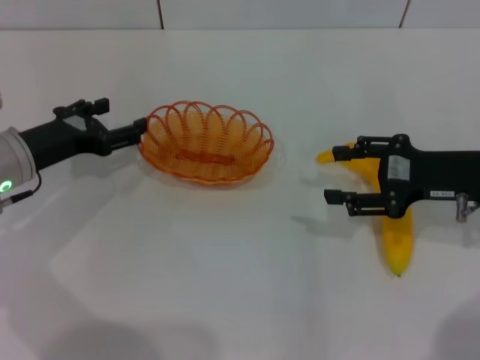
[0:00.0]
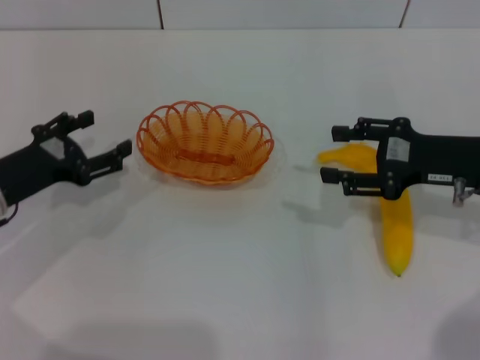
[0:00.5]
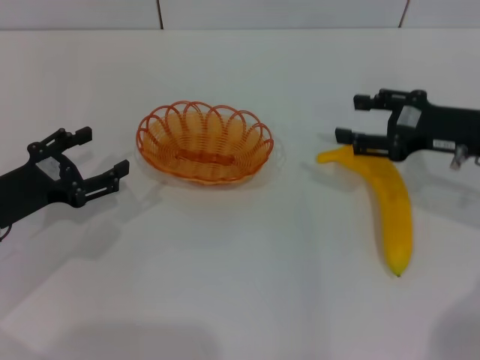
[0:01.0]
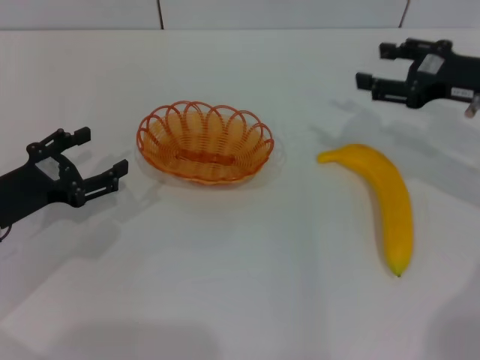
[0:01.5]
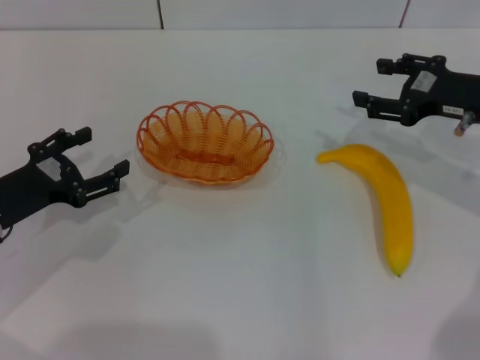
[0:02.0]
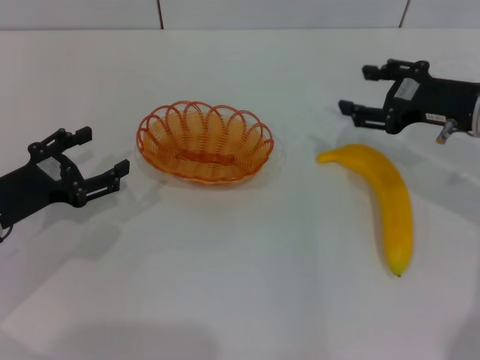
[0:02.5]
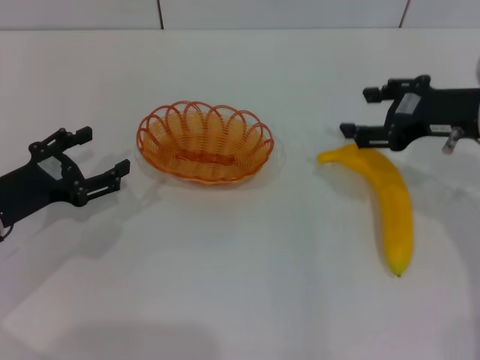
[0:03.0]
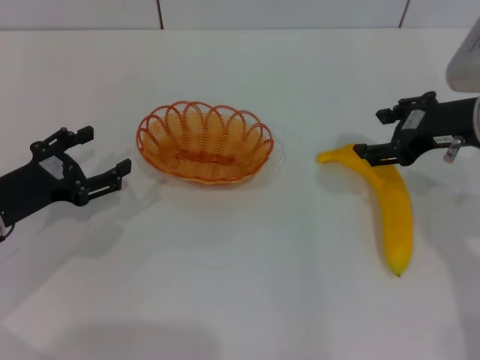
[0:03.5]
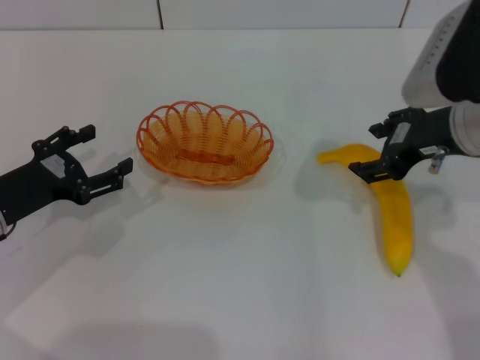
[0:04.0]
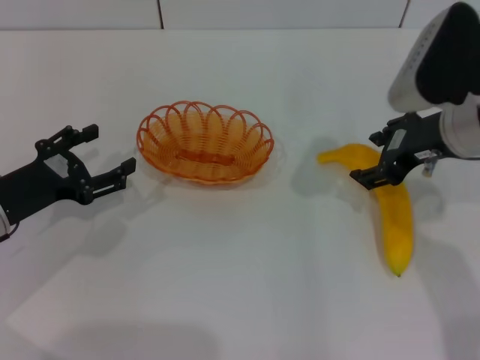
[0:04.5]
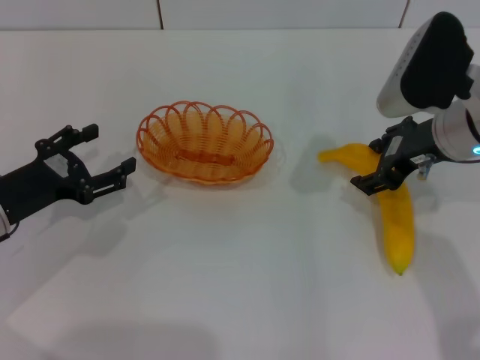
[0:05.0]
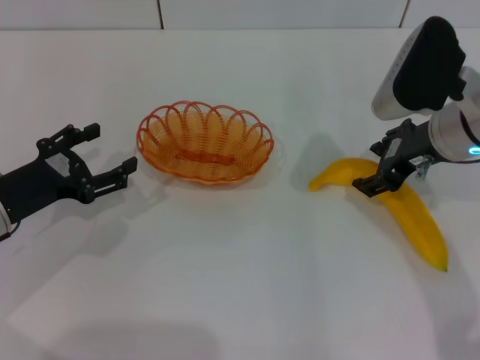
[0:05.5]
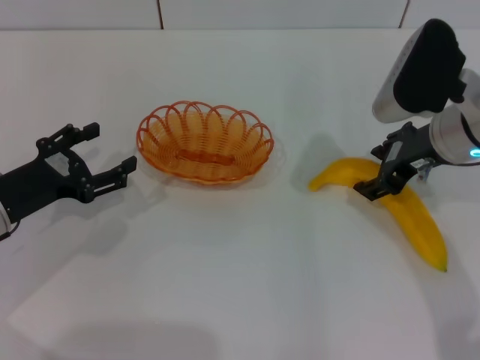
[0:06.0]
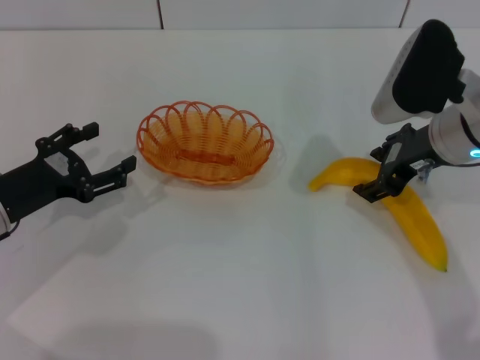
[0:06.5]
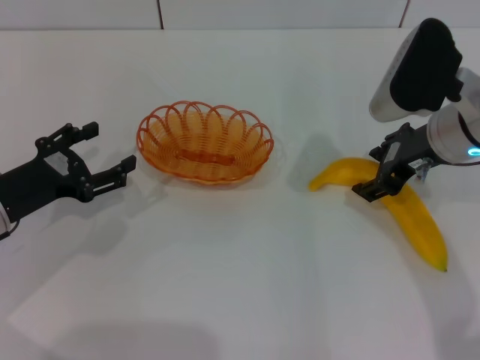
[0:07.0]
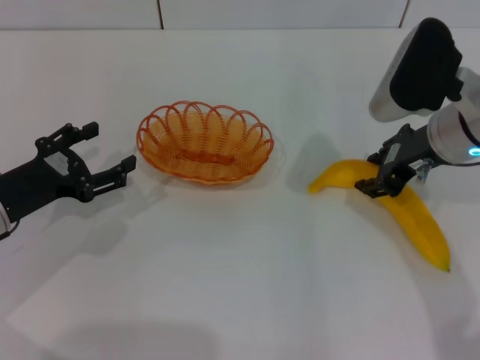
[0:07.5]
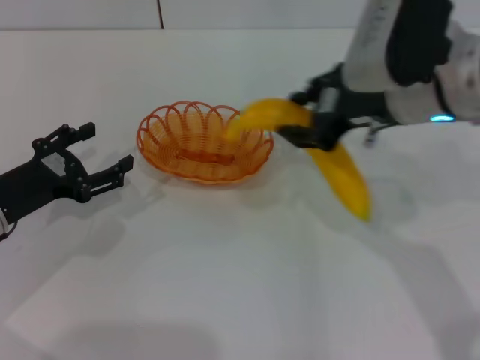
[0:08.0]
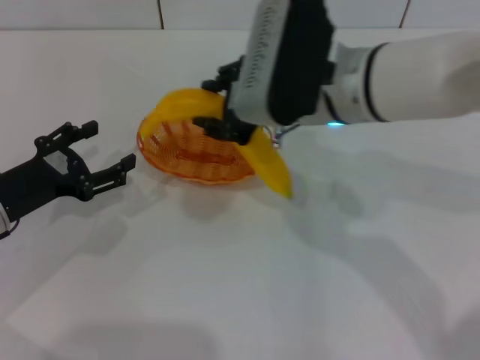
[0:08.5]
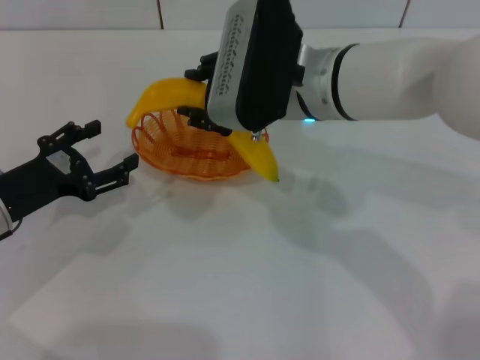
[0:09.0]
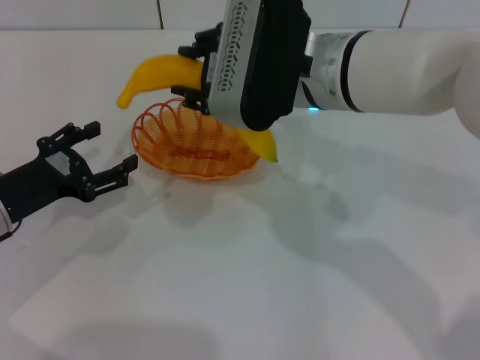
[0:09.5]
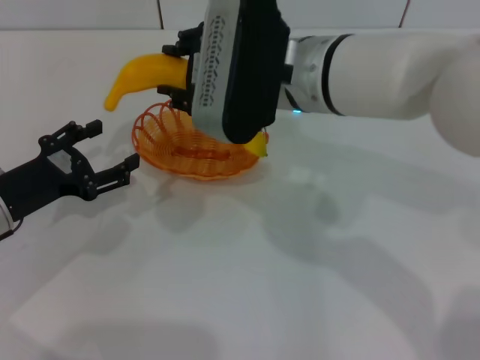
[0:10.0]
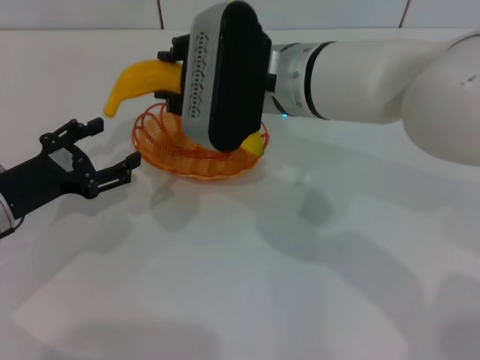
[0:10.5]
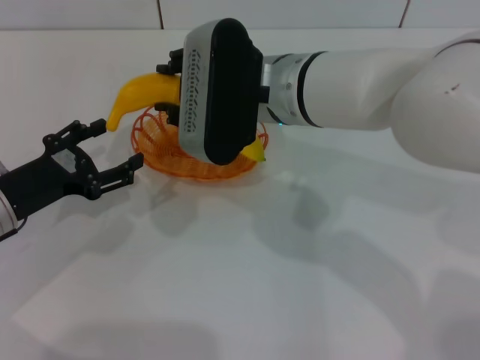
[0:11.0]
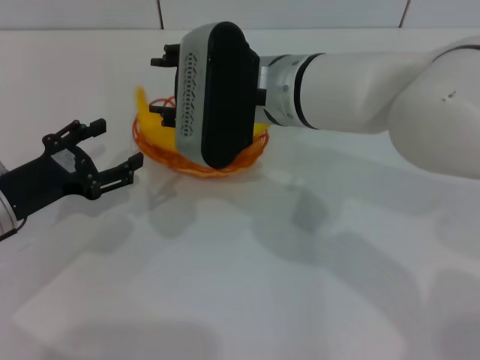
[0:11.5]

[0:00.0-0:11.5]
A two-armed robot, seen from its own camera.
Step, 0:00.0 to 0:02.0: Place the basket in the center of view with the left gripper.
Step, 0:02.5 to 0:08.0: Pick up the banana with the right gripper.
0:00.0 to 0:02.0: The right gripper goes about 5 cm forward. The left gripper travels backward by roughly 5 cm.
0:02.0 to 0:04.0: The right gripper heads to the left, covering roughly 5 cm.
0:04.0 to 0:06.0: There are only small adjustments of the grippers.
0:06.0 to 0:07.5: The right gripper closes up.
0:07.5 to 0:09.5: The right gripper is displaced to the left by approximately 15 cm.
0:09.5 to 0:11.5: The grippers move only a little.

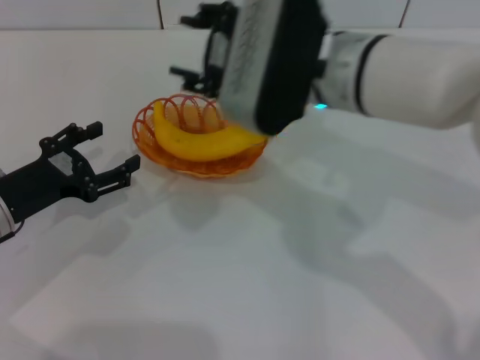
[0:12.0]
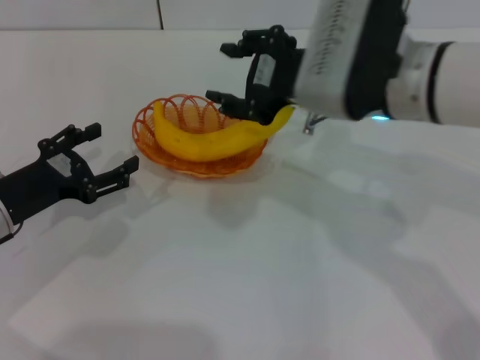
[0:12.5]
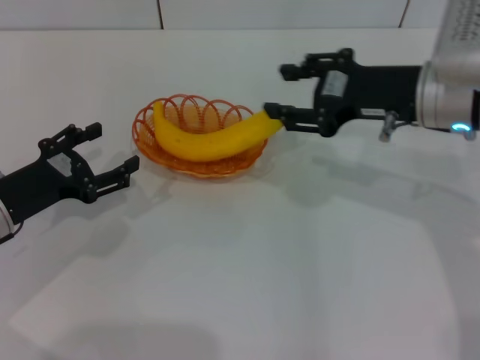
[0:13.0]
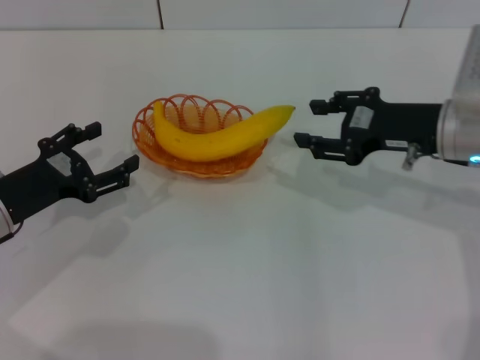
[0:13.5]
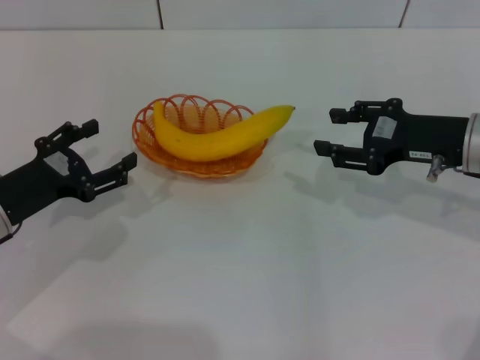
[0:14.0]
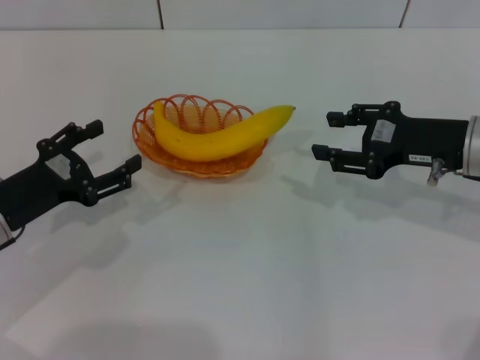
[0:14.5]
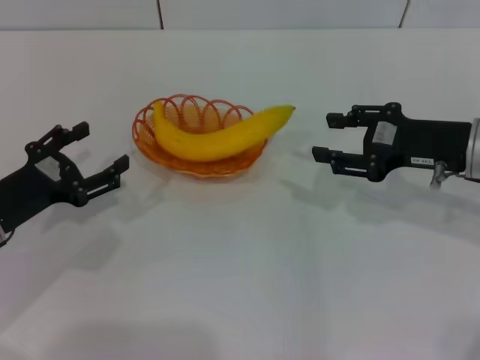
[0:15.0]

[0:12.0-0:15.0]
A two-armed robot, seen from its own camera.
0:12.0 to 0:13.5: The right gripper moves to the right and downward, roughly 20 cm.
0:13.5 to 0:15.0: The grippers stay close to where they were, moving slightly.
